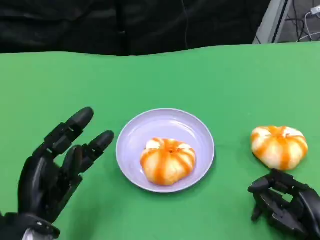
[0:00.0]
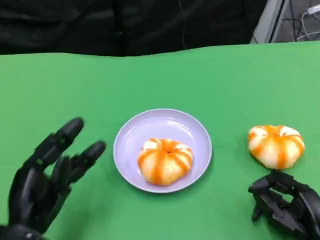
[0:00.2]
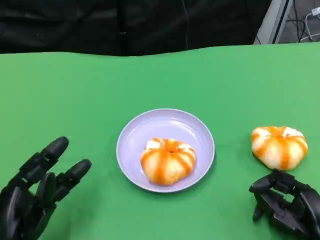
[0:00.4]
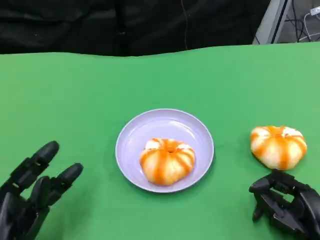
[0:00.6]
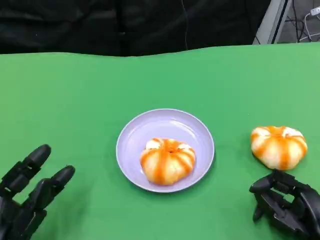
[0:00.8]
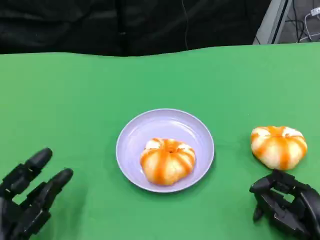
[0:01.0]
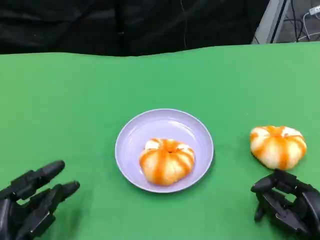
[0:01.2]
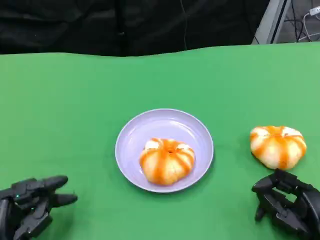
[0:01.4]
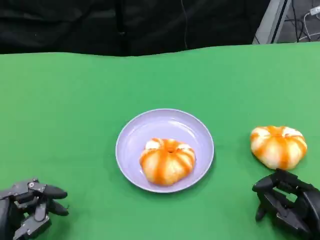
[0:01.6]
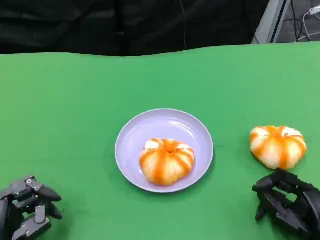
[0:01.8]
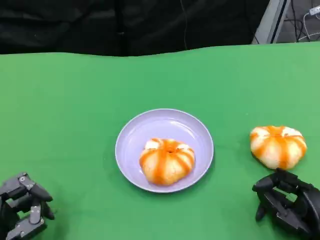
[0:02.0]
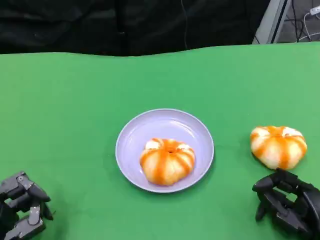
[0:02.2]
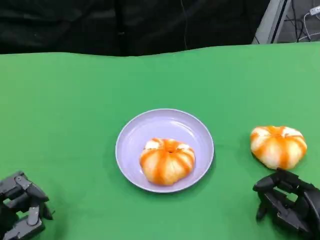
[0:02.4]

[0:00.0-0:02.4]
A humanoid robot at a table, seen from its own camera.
Task of the whole recording: Grasp the bread from the table and place it into the plate.
0:00.0 to 0:01.2: The left hand is displaced downward by some 5 cm.
0:01.2 to 0:02.4: There are only small adjustments of the hands.

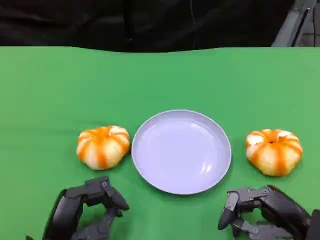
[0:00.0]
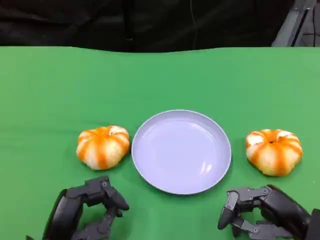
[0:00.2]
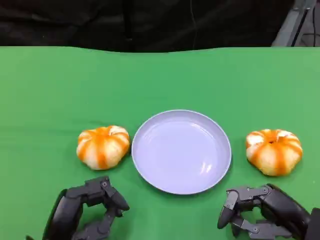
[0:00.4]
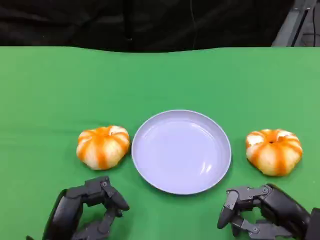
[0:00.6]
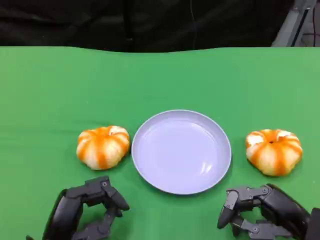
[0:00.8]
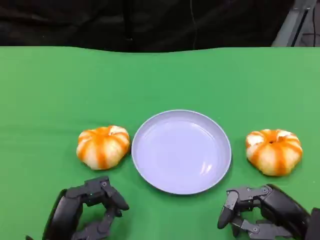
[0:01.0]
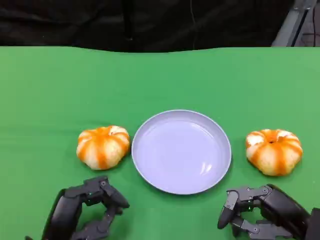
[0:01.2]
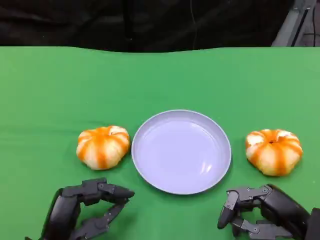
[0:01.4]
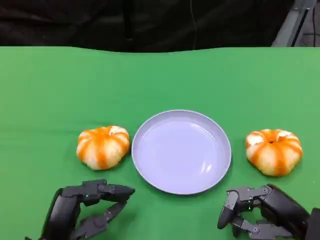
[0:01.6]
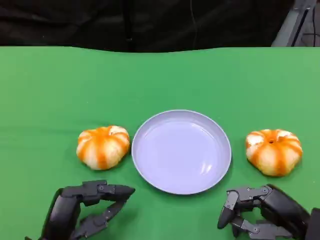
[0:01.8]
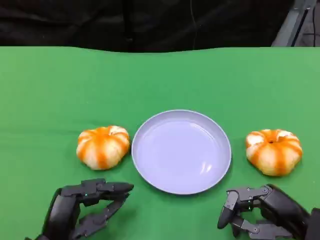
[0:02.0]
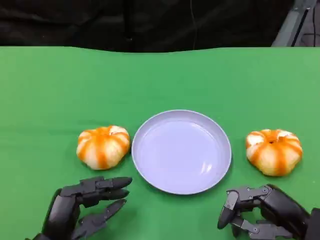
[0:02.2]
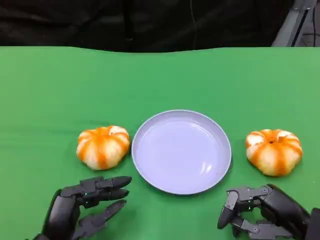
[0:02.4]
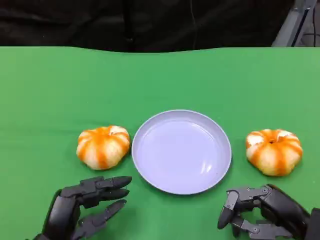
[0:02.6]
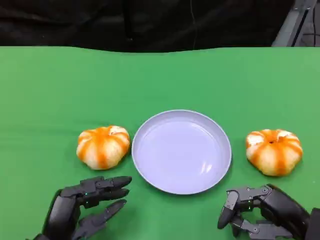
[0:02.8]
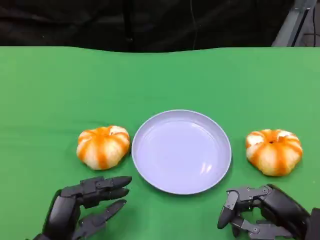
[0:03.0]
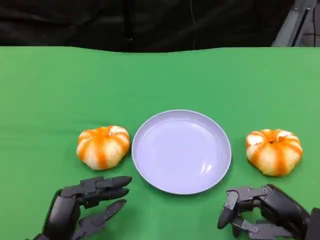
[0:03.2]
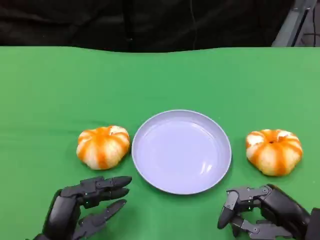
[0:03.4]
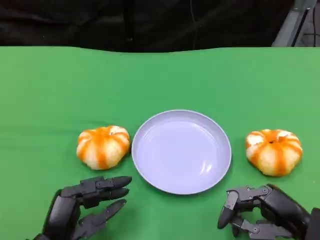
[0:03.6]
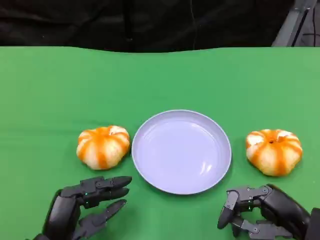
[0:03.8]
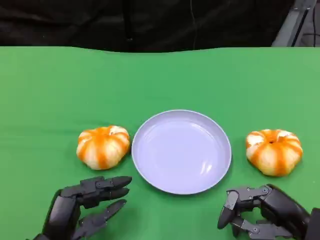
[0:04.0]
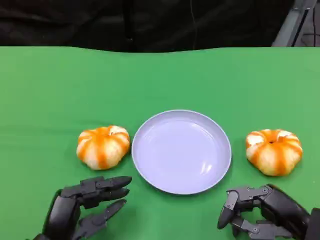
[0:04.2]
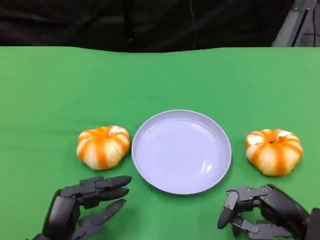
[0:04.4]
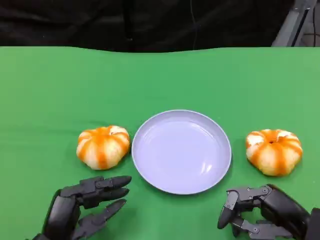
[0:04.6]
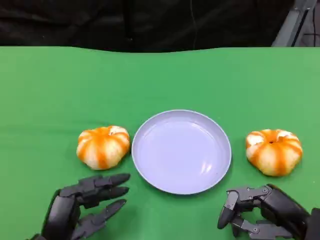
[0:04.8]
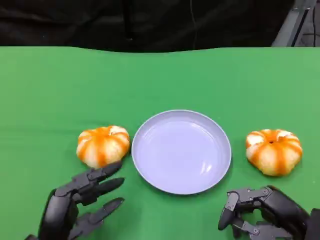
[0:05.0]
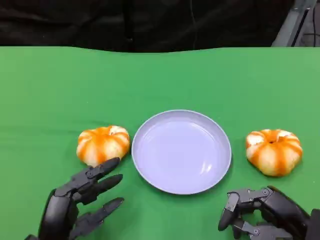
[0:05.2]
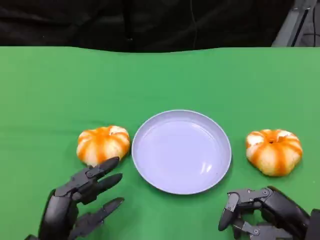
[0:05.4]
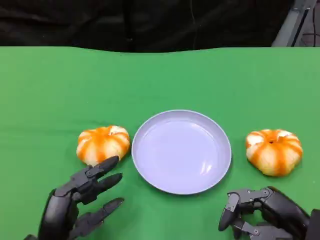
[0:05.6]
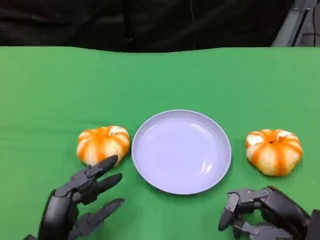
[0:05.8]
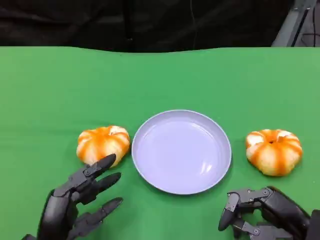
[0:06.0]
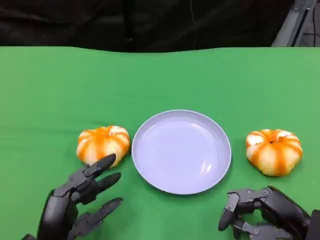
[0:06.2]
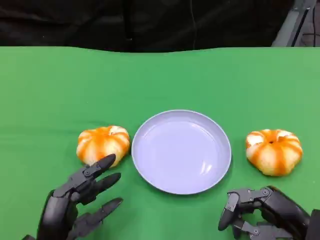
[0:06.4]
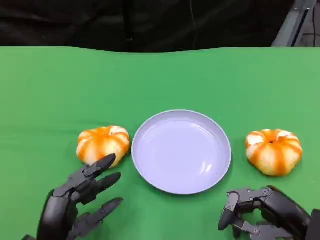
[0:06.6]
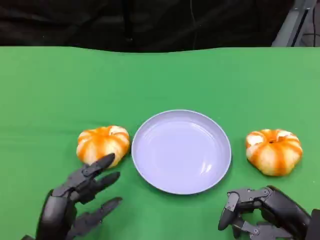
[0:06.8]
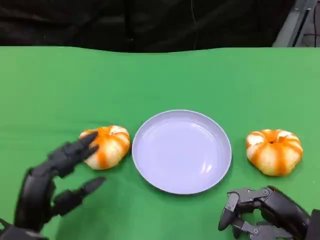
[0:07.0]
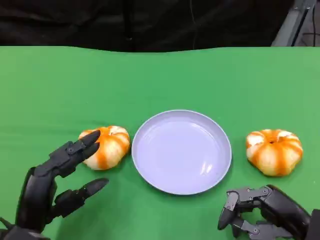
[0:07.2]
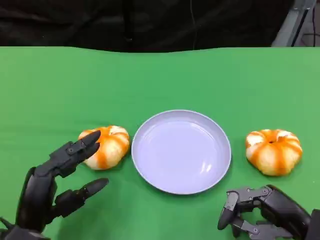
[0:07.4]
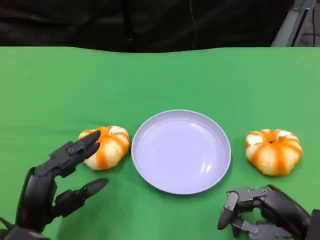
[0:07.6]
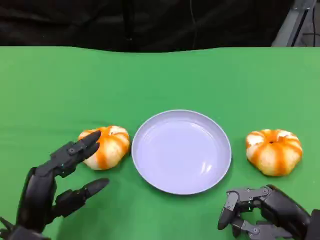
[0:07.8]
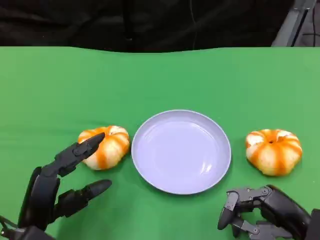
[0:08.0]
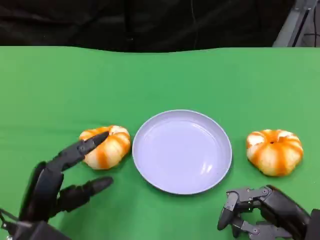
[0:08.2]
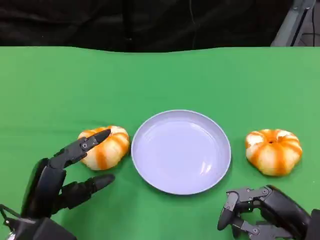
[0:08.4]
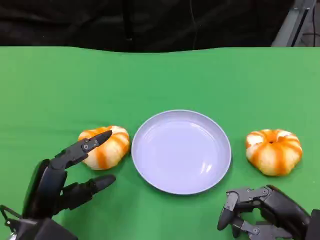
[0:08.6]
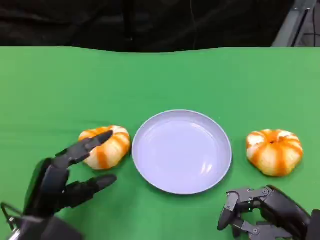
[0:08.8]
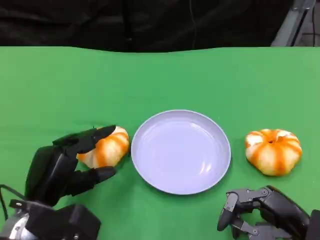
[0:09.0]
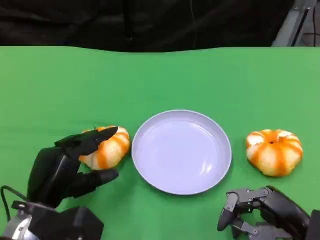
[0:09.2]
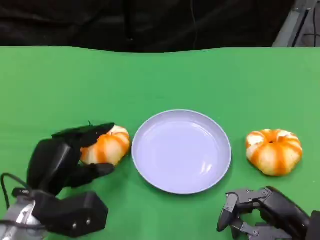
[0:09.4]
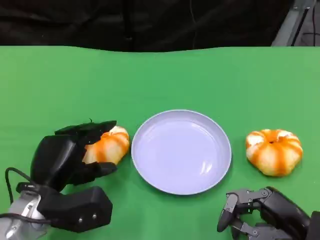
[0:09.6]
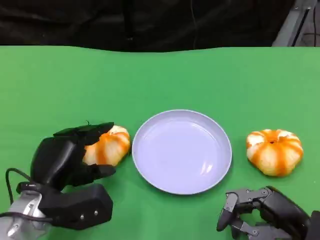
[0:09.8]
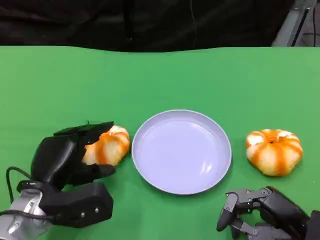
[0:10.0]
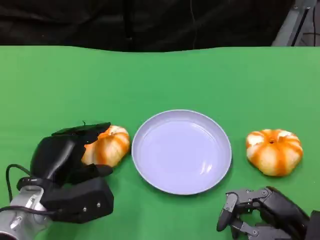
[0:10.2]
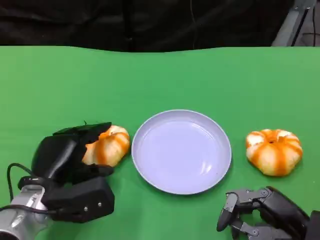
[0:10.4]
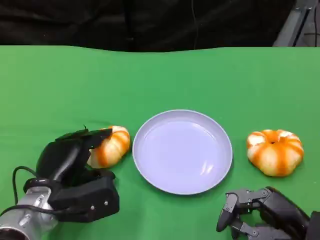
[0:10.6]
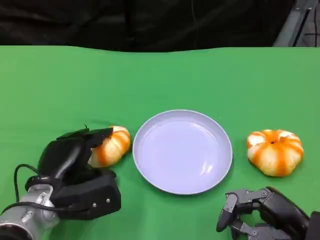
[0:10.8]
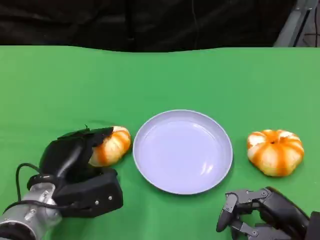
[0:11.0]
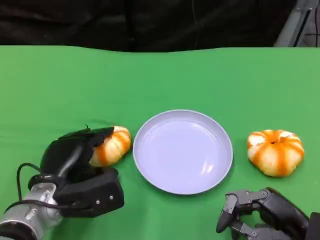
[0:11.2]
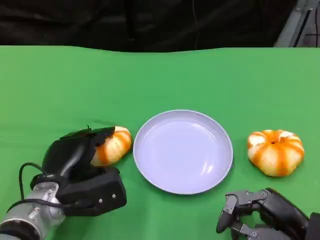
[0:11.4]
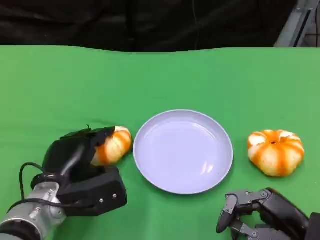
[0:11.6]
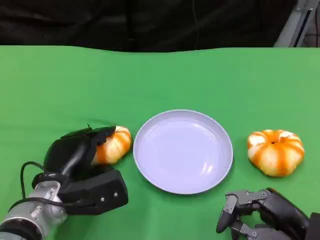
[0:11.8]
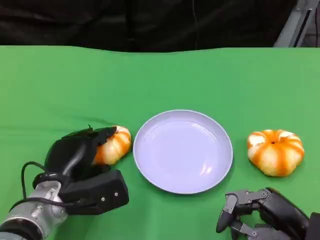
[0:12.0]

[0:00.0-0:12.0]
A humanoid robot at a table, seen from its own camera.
Task of the whole recording: Grasp the bread from the table and place it into the plate.
0:00.0 to 0:01.6: Neither hand changes place.
0:01.6 to 0:04.4: Both hands stay put.
0:04.4 to 0:06.0: The two hands keep their place.
0:06.0 to 0:07.6: The hands stay close to where they were, moving slightly.
0:10.4 to 0:12.0: The hands make only small movements.

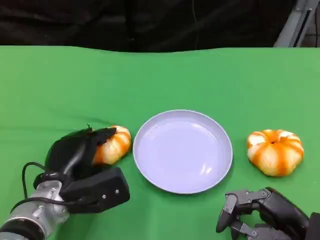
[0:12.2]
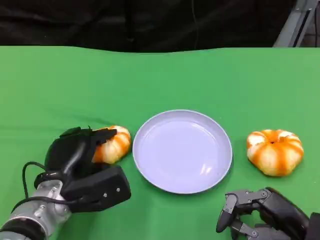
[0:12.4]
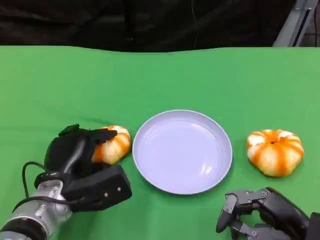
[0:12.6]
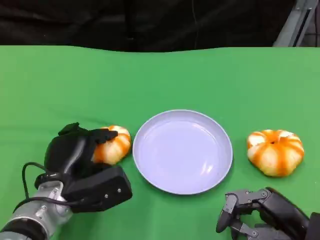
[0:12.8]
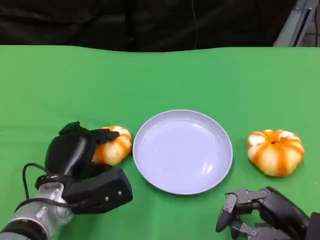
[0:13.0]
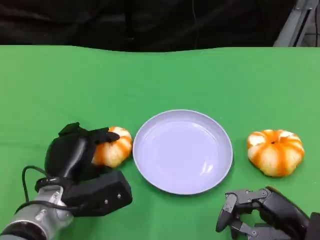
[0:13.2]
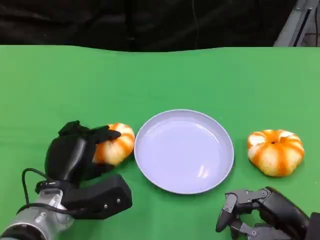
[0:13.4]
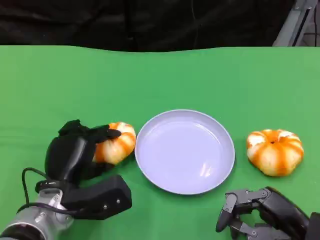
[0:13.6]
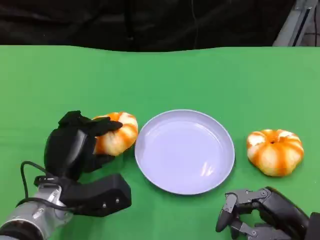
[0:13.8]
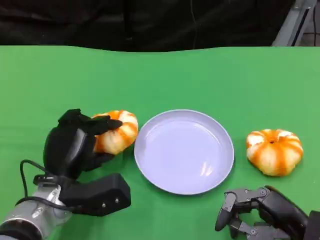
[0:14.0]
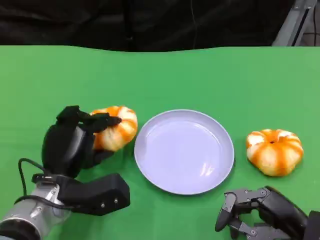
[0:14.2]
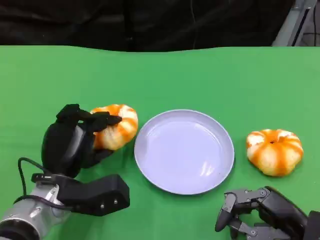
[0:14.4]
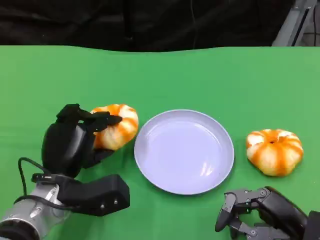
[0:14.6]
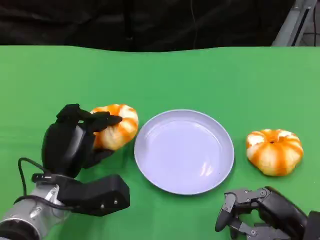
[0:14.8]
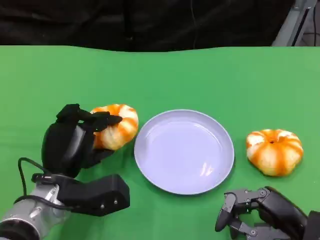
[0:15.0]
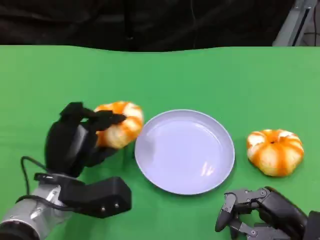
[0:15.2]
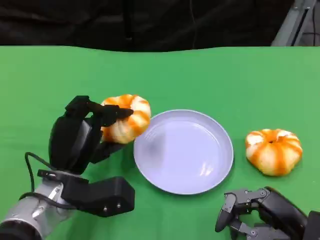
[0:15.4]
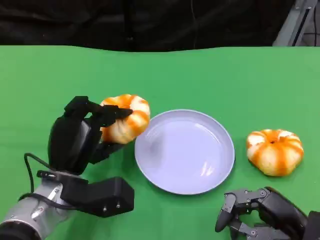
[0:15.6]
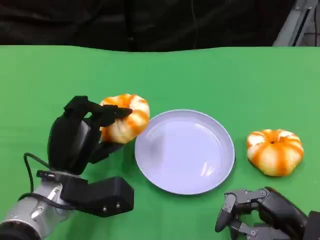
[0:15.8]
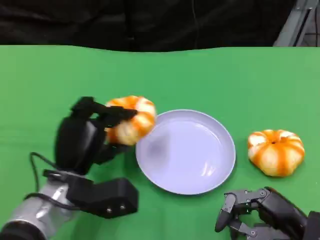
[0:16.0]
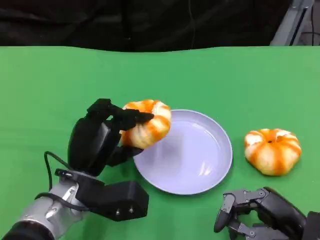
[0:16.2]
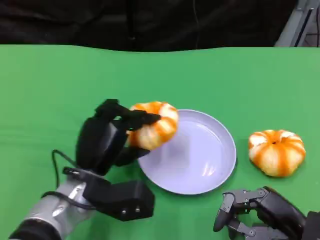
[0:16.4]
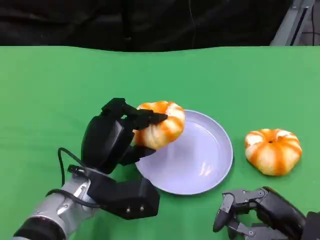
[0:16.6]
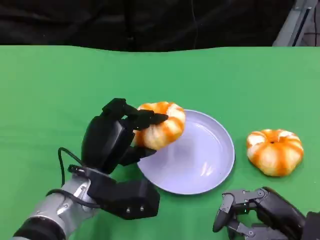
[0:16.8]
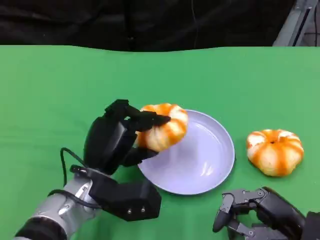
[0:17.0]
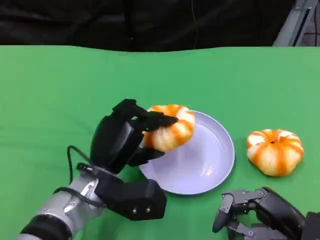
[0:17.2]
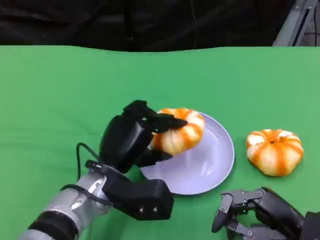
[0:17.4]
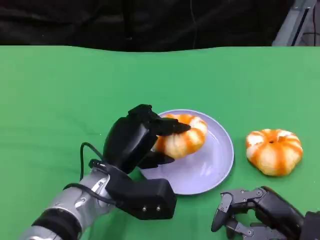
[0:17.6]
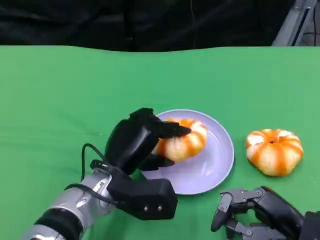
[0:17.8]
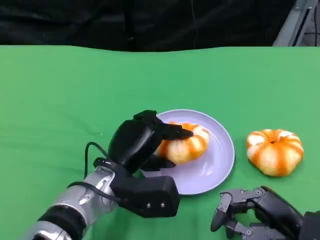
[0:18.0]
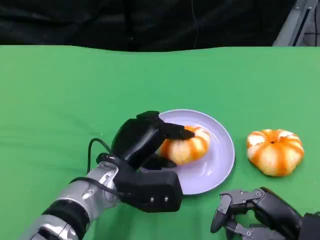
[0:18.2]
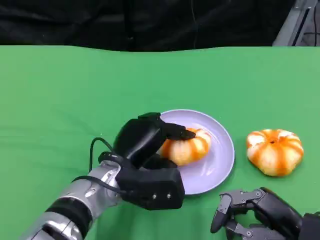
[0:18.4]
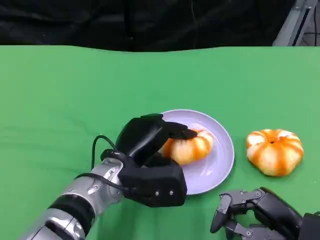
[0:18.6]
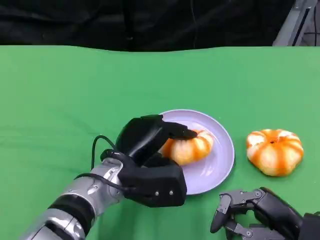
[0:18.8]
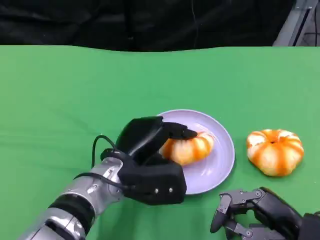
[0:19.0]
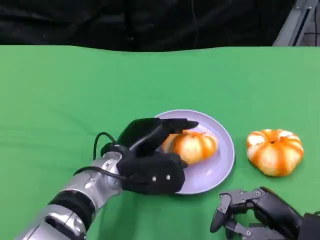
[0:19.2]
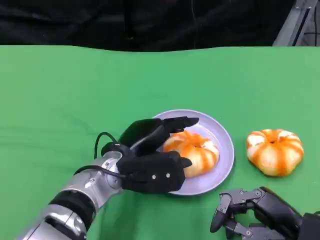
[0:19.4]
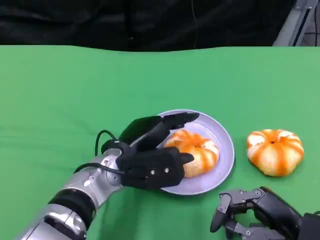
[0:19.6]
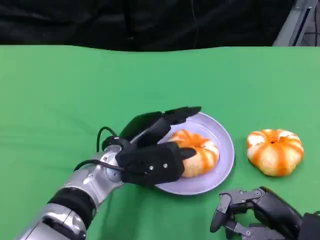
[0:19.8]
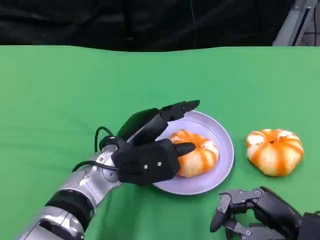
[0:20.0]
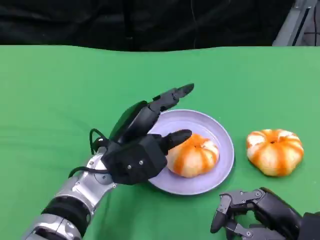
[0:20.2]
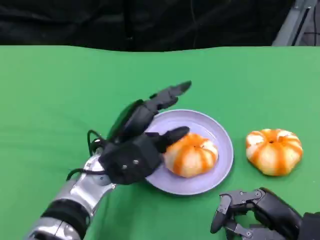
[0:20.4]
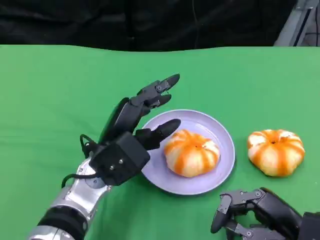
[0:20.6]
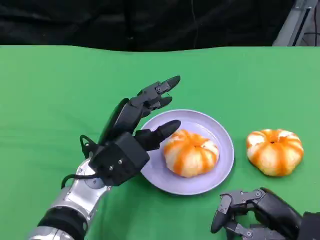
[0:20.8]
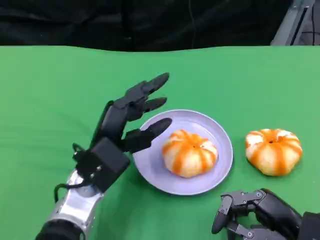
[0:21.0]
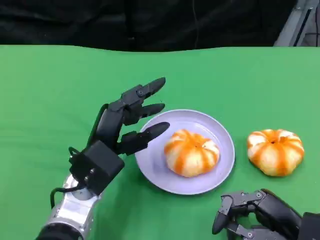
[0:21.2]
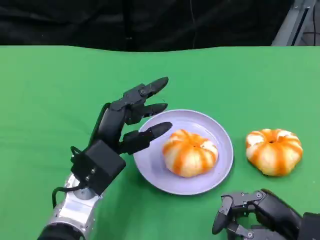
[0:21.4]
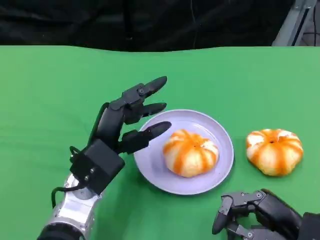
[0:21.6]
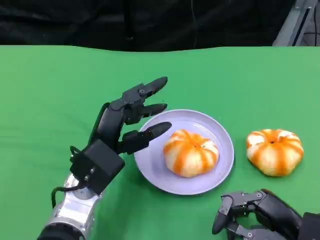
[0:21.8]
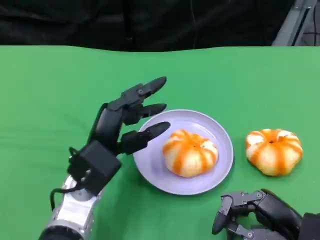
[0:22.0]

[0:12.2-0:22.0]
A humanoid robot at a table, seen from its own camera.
Task of the whole recording: Grasp the bread from the table and place it into the plate.
0:12.2 to 0:13.6: The hands move only a little.
0:13.6 to 0:15.0: The hands move only a little.
0:17.8 to 0:19.2: There are only small adjustments of the hands.
0:20.6 to 0:22.0: The hands make only small movements.
